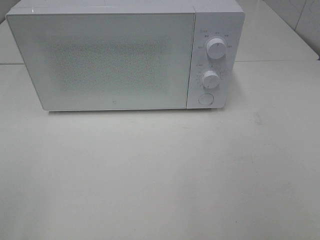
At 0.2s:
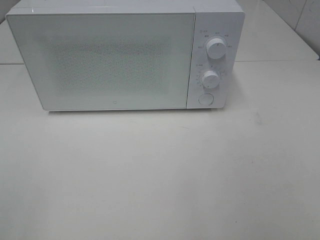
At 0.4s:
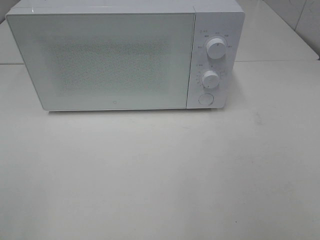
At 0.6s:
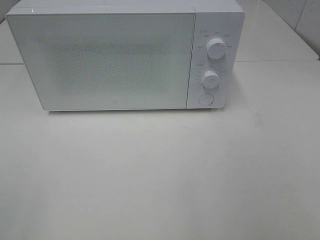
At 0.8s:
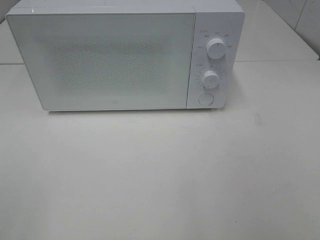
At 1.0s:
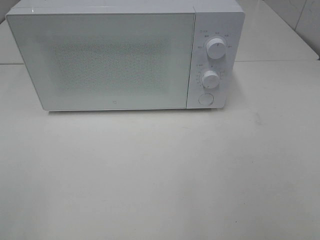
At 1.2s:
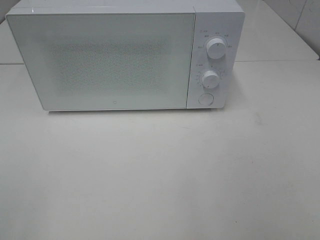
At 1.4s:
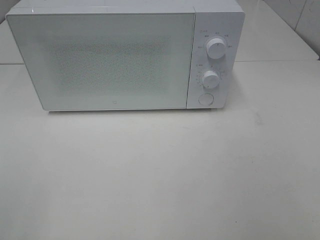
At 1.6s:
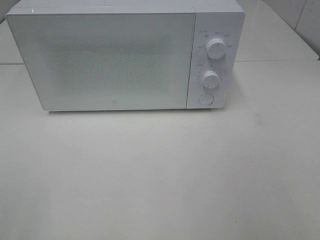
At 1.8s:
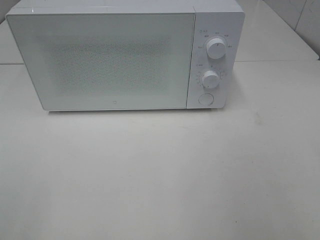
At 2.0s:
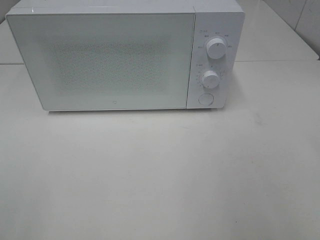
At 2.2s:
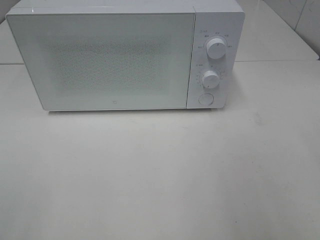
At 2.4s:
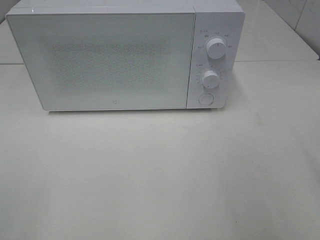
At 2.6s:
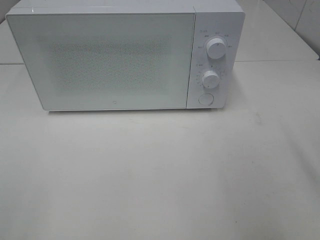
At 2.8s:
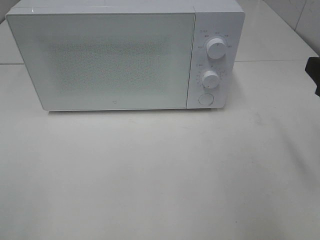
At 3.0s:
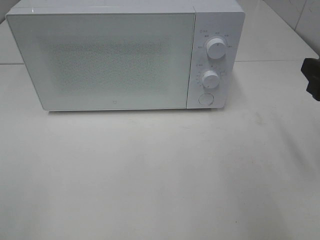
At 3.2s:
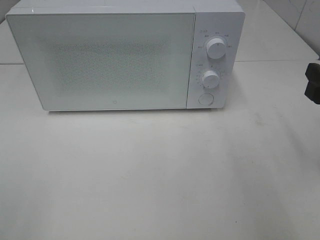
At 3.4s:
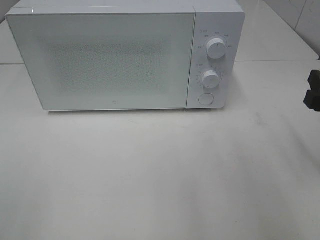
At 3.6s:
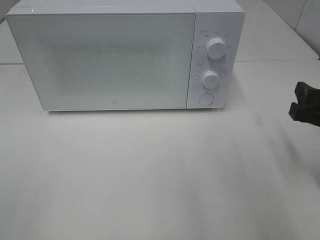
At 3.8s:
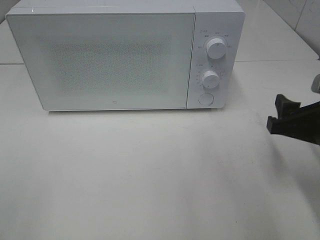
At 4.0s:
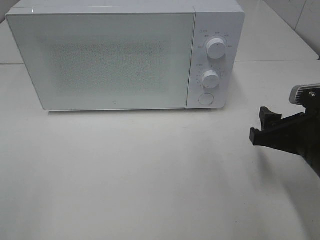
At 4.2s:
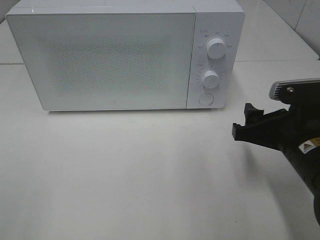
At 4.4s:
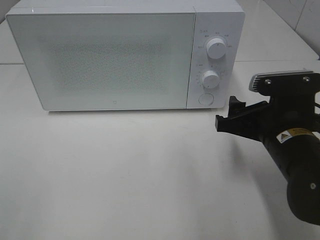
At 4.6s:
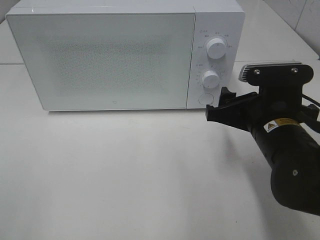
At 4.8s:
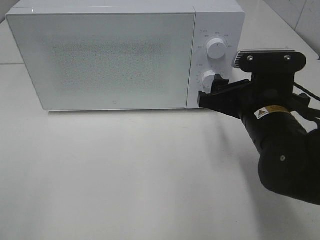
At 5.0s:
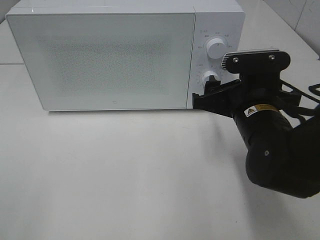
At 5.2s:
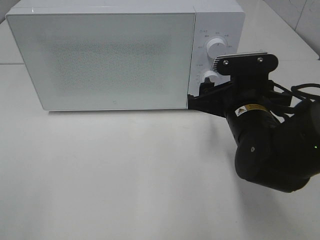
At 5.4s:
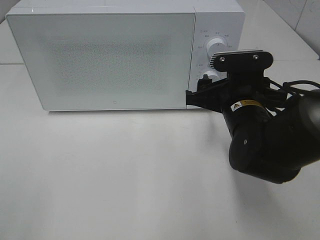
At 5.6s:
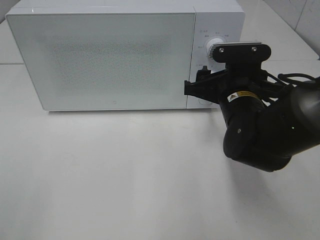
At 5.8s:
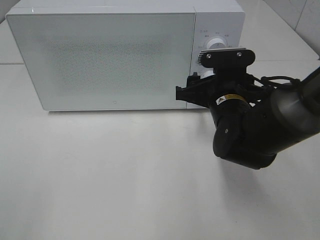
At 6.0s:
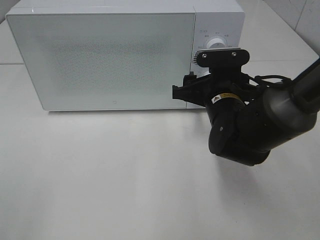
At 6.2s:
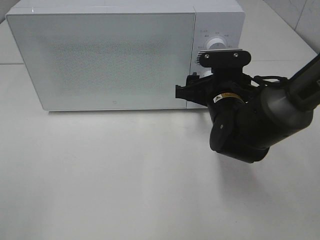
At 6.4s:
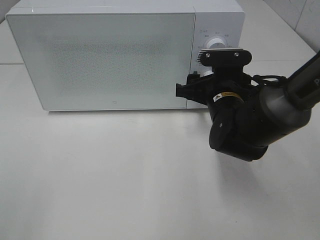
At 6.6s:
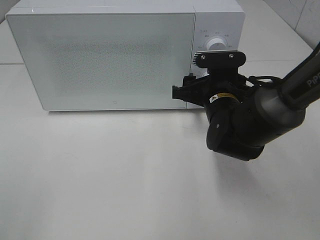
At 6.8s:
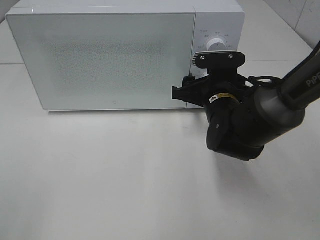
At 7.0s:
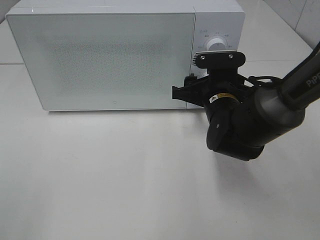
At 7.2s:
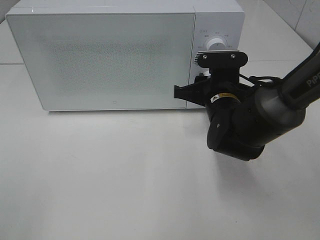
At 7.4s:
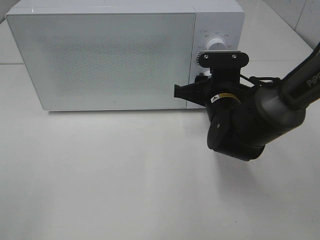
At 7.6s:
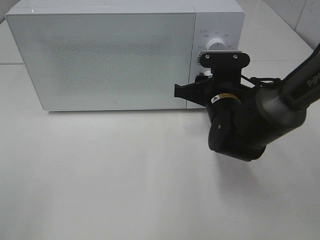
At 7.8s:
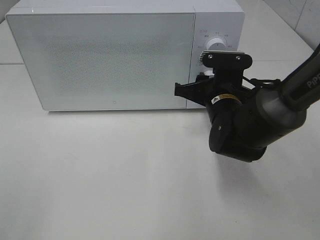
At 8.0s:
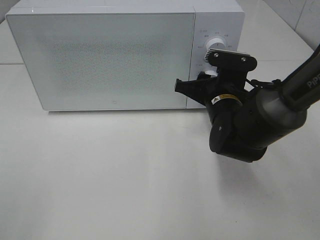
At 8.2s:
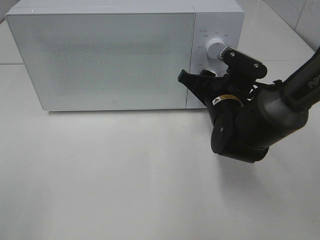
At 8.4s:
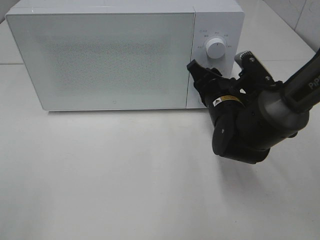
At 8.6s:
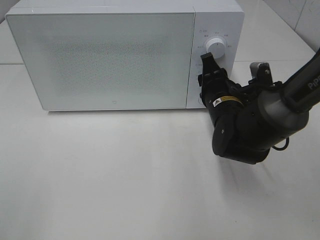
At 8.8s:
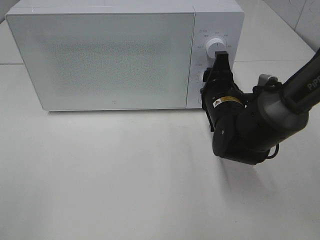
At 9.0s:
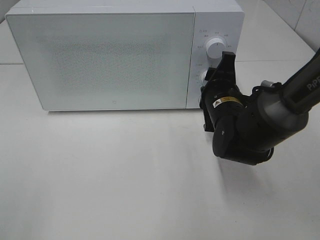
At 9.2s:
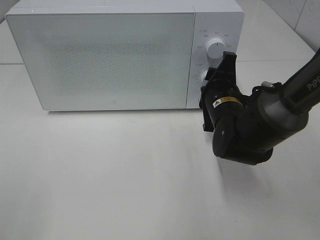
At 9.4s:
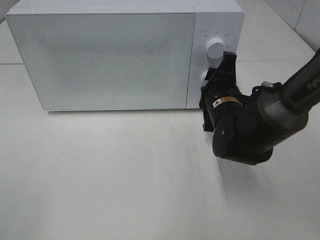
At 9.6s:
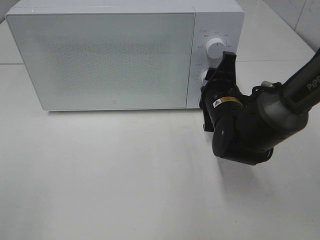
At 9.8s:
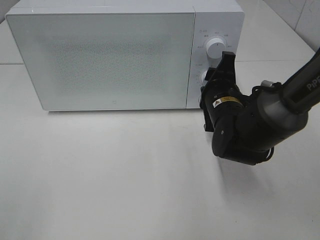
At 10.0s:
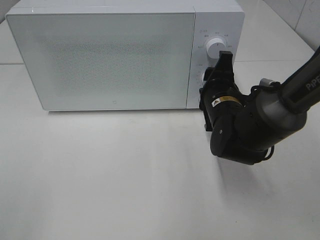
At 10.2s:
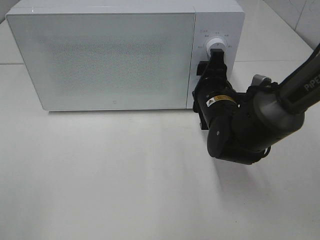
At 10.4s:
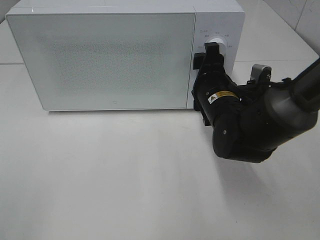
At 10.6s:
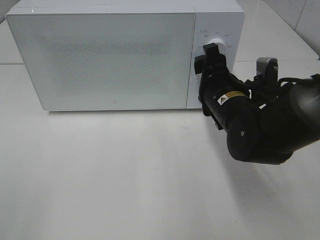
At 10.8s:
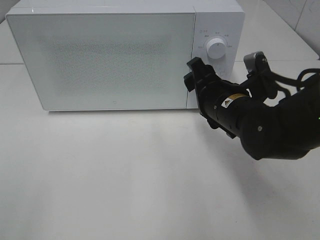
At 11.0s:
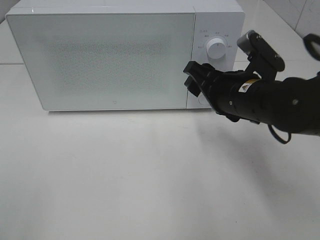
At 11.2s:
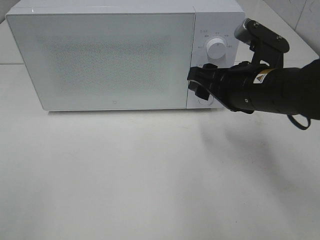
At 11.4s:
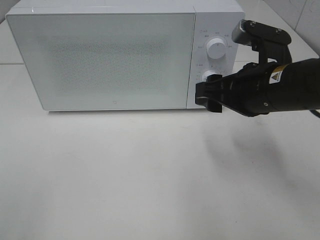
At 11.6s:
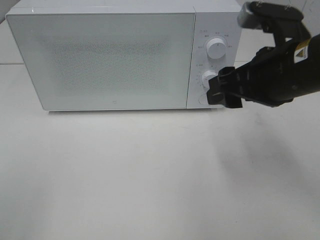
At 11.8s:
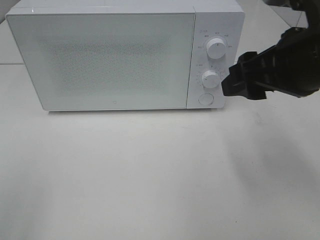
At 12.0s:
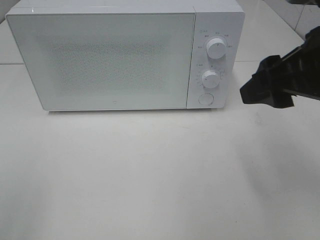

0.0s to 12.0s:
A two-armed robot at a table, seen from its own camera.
Task of the whole recording: Heat the burger.
Step, 0.0s to 10.2s: Right hand: twist timer button.
1.6s to 3.0s: The right gripper travels forward and downward by approximately 20 cm.
3.0s to 4.4s: The right gripper is displaced to the left and downward by about 15 cm.
4.4s to 6.0s: The right gripper goes some 10 cm forward and to the left.
6.0s to 7.6s: The right gripper closes its fingers.
9.0s to 10.4s: The grippers make only small movements.
10.4s to 12.0s: The right gripper is displaced upward, backward and to the right by some 20 cm.

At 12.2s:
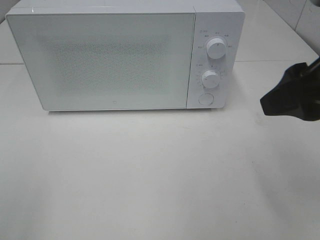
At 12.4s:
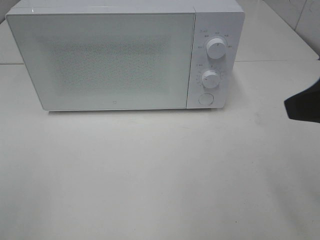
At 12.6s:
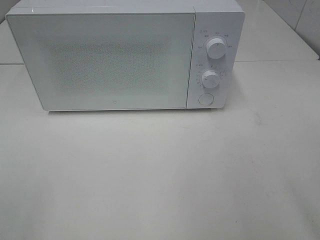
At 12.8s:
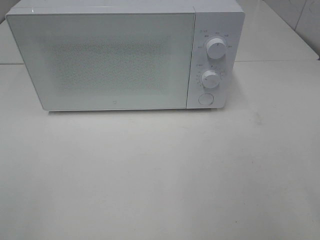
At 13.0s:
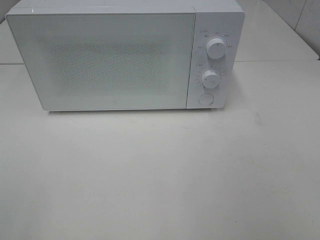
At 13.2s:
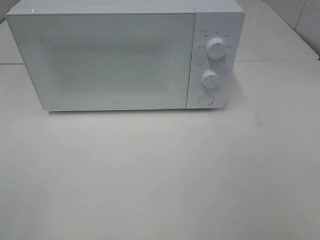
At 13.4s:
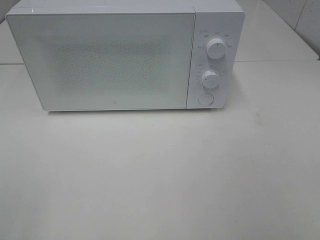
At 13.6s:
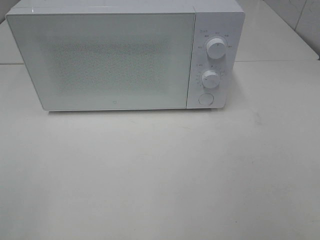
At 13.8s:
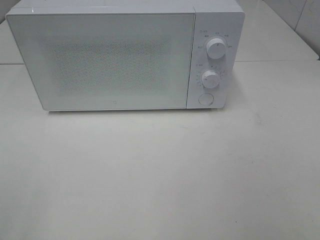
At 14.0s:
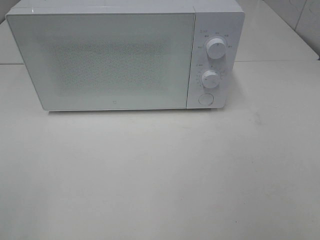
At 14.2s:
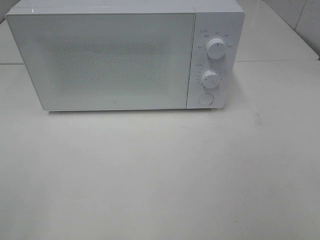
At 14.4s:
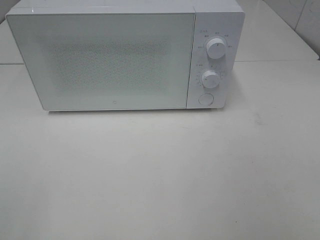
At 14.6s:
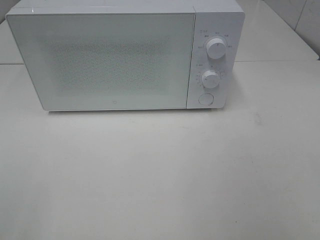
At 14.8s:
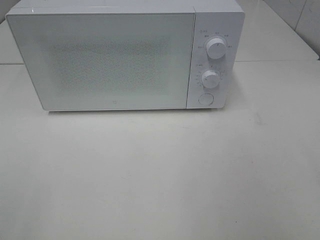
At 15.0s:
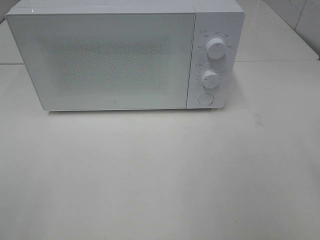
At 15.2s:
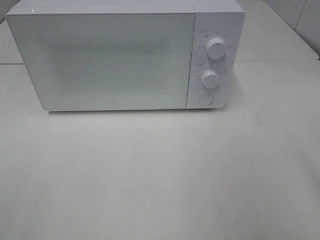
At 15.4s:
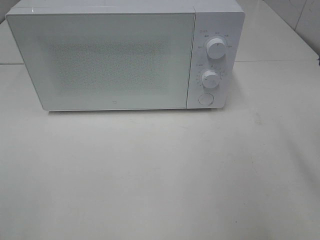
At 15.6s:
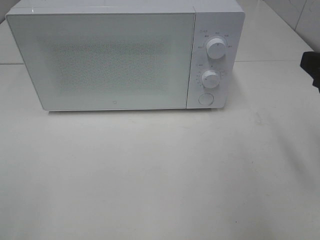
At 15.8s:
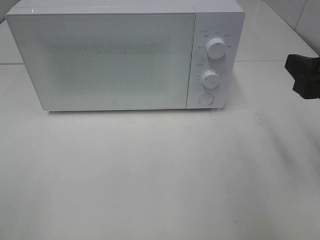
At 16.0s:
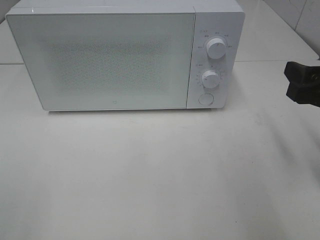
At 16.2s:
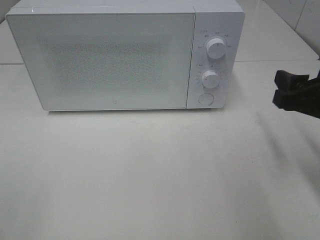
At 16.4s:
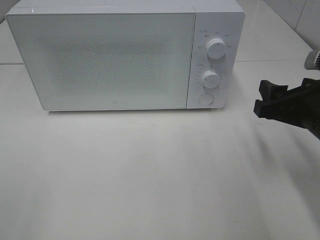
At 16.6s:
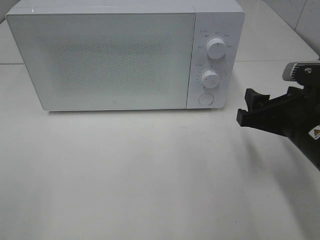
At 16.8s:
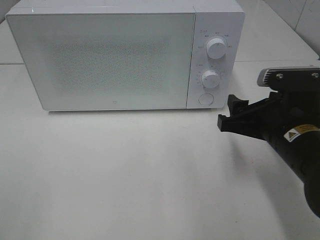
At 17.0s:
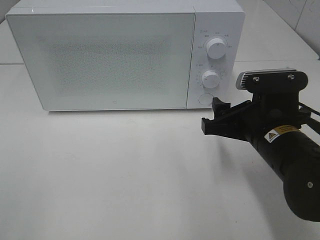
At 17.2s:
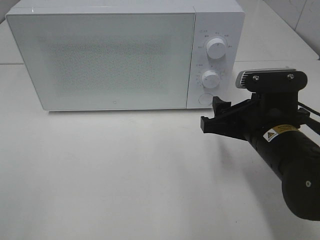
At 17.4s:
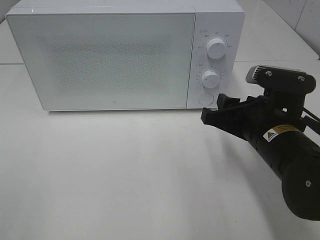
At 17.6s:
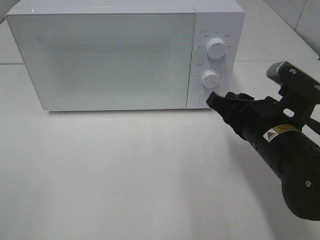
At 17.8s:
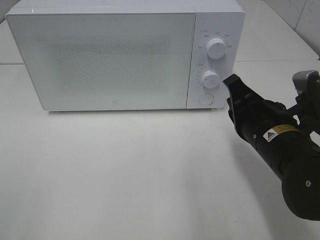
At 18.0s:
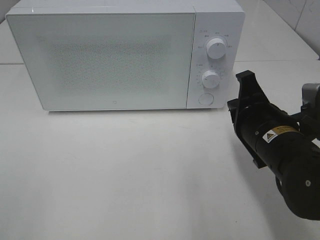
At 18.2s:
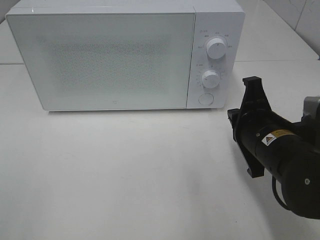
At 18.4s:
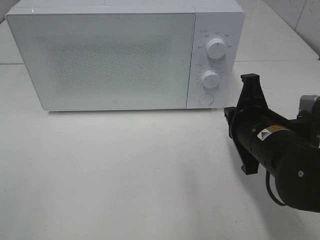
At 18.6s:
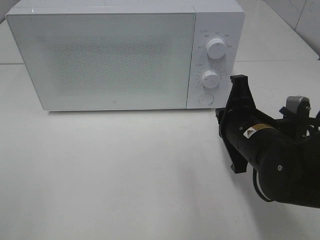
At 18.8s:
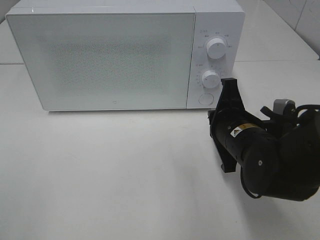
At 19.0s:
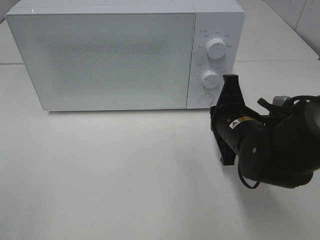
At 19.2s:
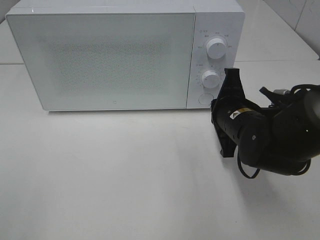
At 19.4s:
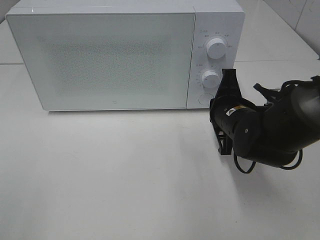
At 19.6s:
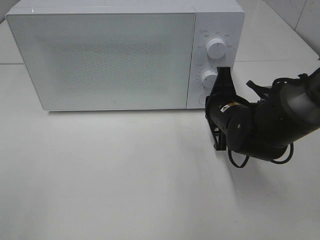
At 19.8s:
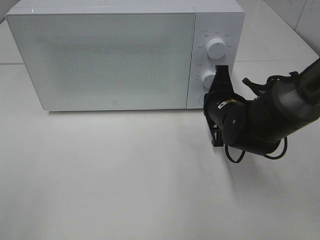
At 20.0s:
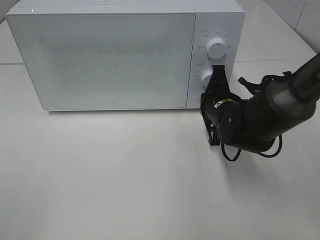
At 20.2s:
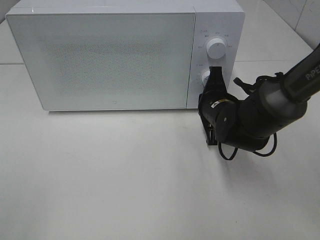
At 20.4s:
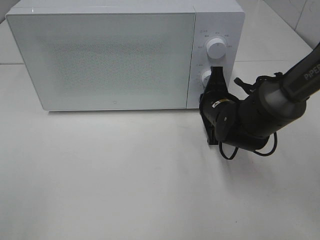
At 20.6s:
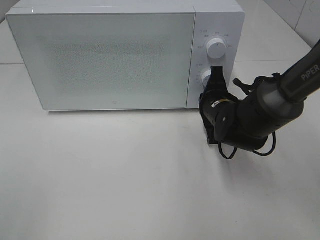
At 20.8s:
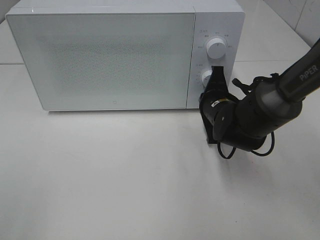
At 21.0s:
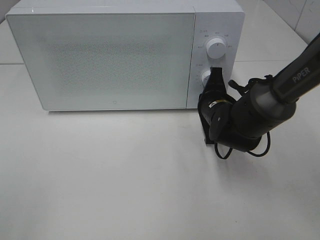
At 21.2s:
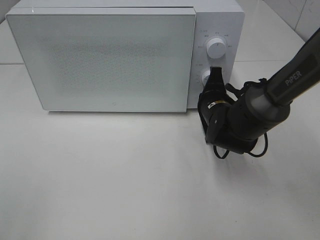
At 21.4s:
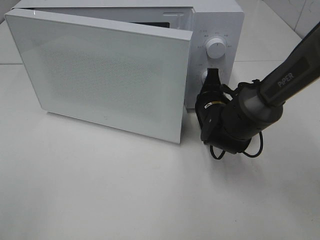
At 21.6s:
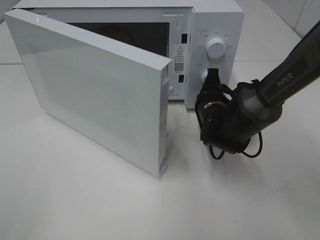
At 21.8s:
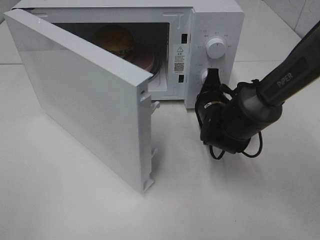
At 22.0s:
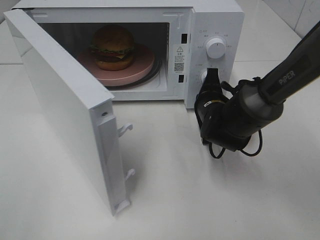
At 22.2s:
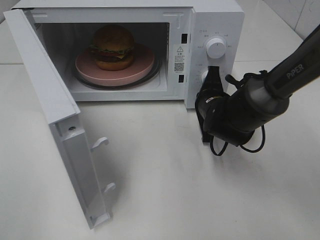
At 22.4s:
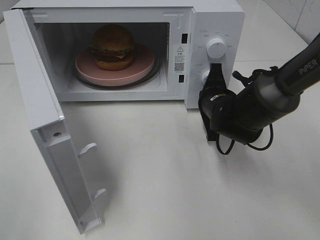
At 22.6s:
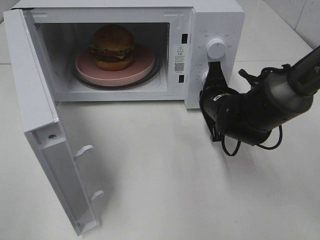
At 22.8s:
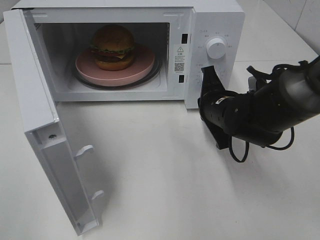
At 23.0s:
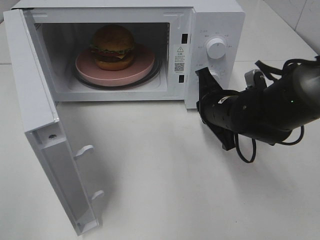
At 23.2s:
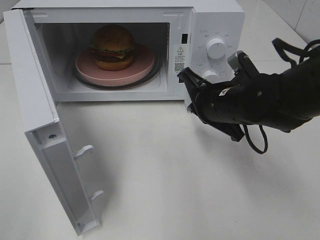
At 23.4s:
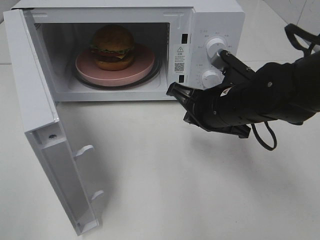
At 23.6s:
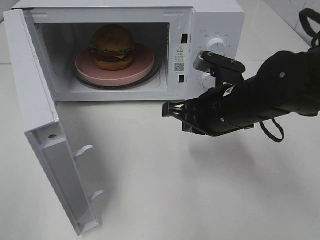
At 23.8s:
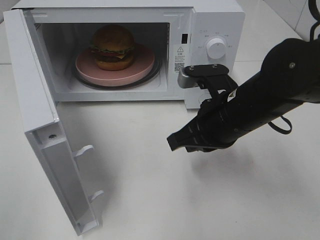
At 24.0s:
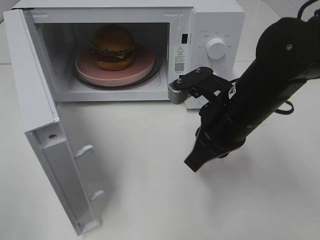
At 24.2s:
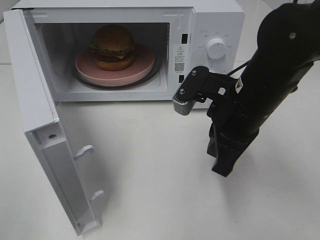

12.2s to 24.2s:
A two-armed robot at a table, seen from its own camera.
Task of the whole recording: Heat the burger.
Step, 12.2s to 22.6s: Right hand: press the switch.
12.2s to 13.8s: The right gripper shifts roughly 20 cm backward and to the right.
15.2s to 16.6s: The right gripper goes some 15 cm downward, forward and to the left.
16.6s to 18.2s: The right gripper changes place by some 5 cm, and closes.
18.2s to 19.8s: The right gripper moves forward, some 10 cm.
19.8s to 21.2s: The grippers move only a little.
22.6s to 24.2s: The right gripper shifts approximately 15 cm upward and backward.
